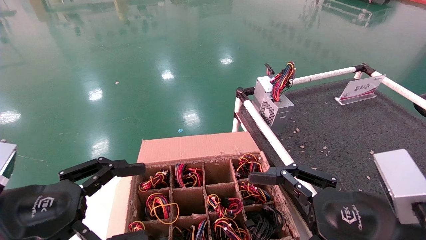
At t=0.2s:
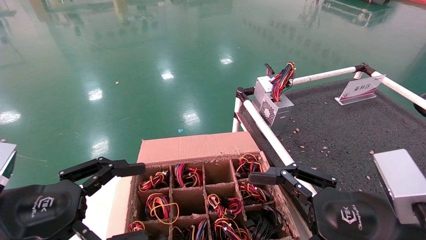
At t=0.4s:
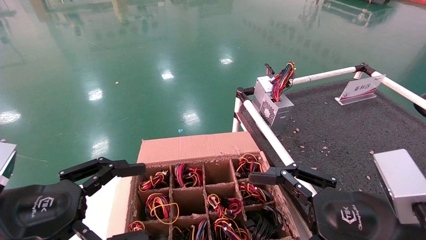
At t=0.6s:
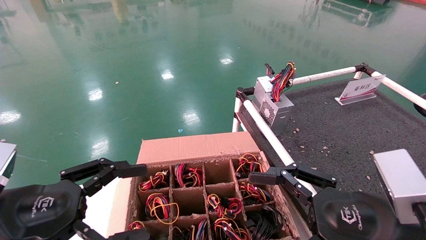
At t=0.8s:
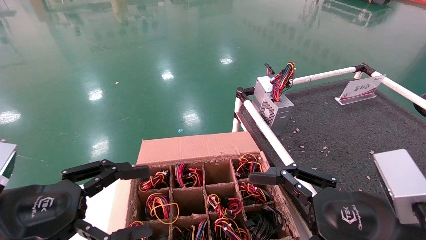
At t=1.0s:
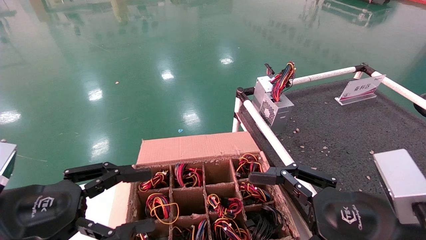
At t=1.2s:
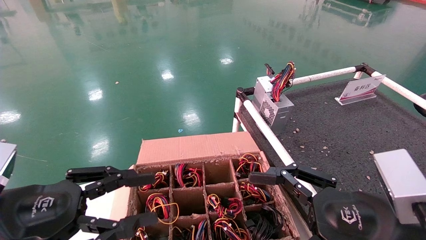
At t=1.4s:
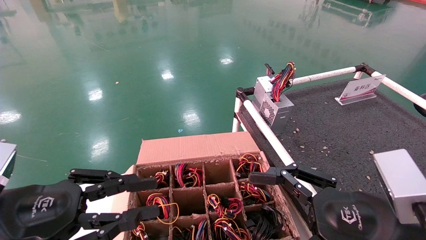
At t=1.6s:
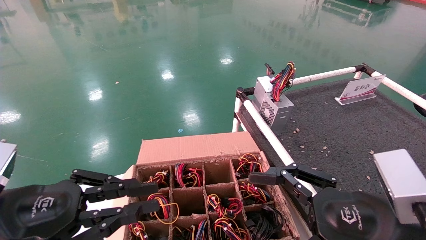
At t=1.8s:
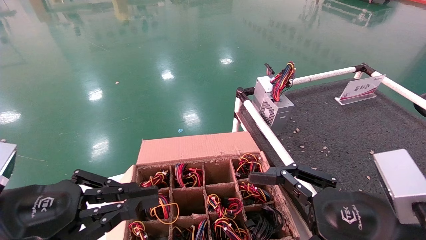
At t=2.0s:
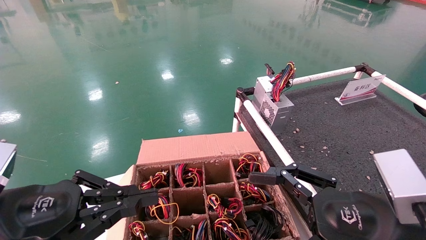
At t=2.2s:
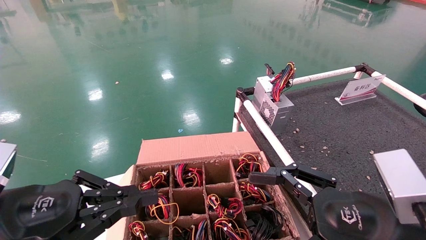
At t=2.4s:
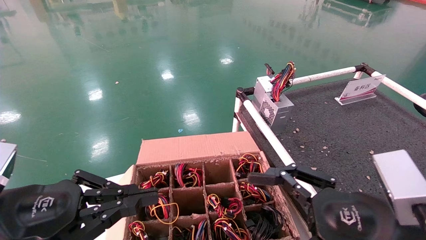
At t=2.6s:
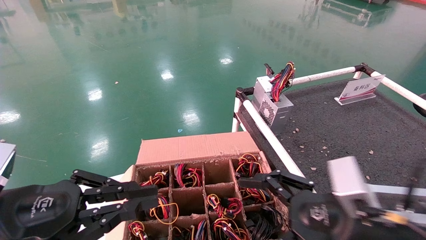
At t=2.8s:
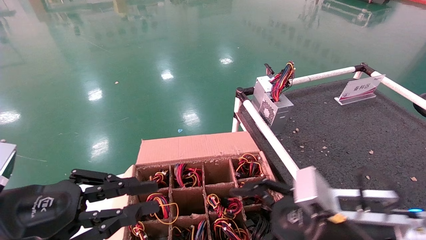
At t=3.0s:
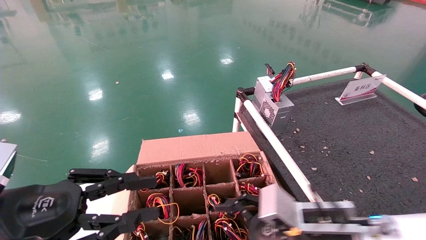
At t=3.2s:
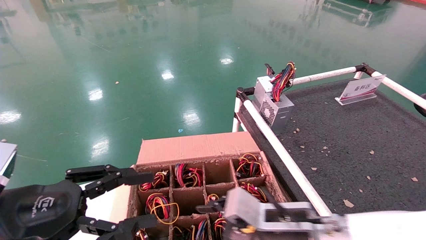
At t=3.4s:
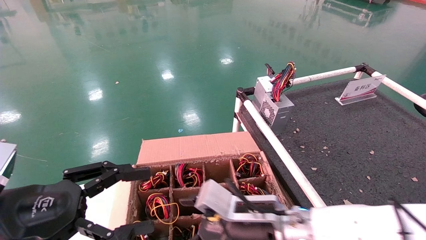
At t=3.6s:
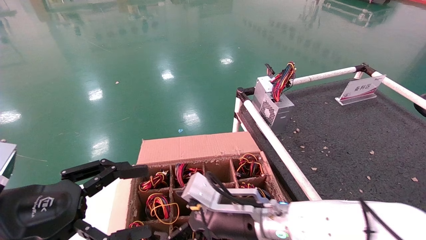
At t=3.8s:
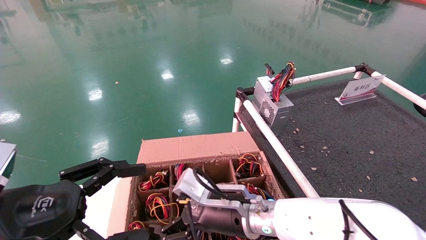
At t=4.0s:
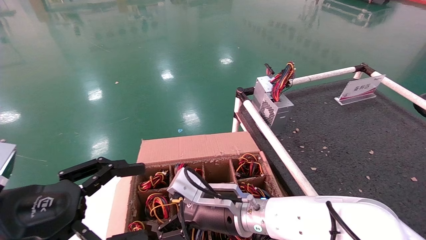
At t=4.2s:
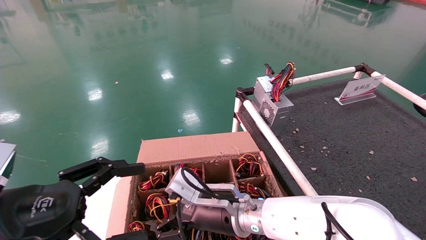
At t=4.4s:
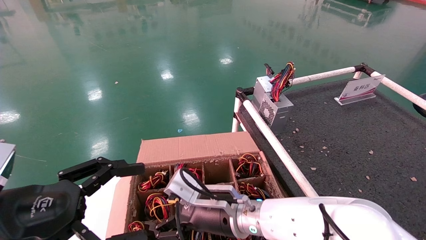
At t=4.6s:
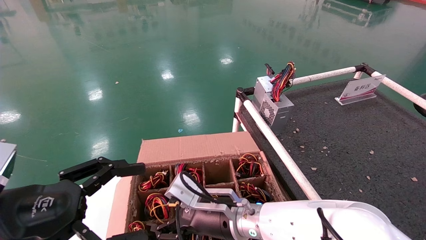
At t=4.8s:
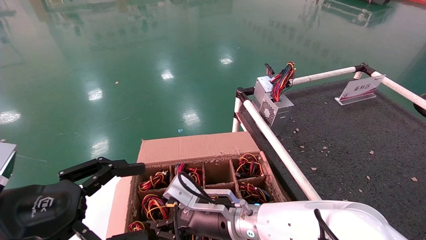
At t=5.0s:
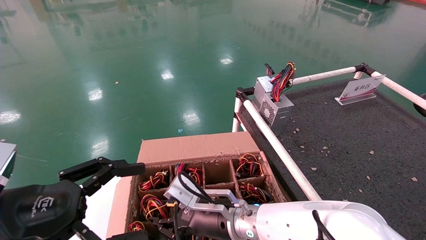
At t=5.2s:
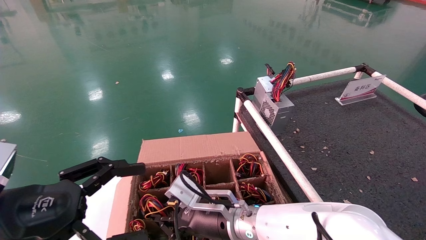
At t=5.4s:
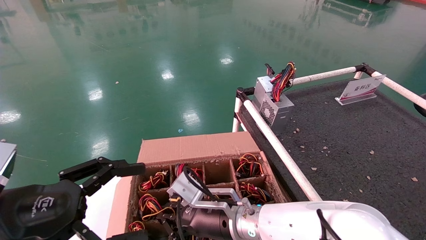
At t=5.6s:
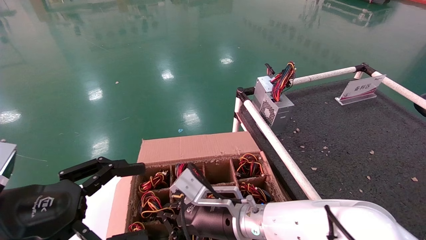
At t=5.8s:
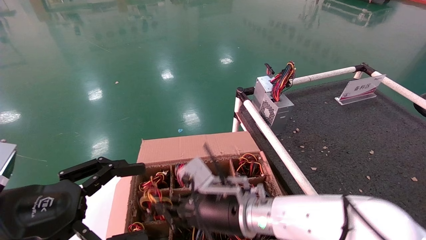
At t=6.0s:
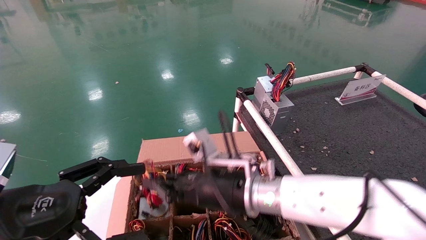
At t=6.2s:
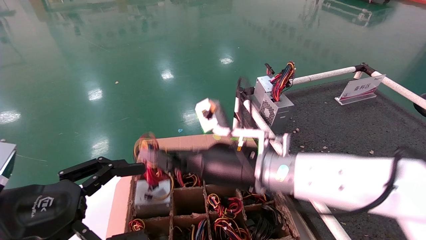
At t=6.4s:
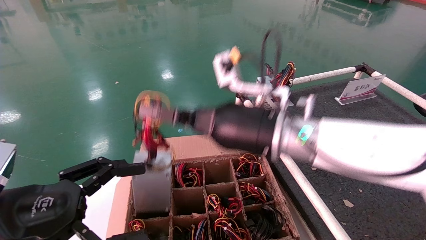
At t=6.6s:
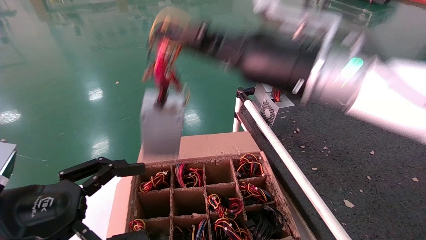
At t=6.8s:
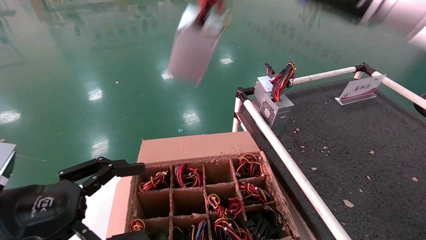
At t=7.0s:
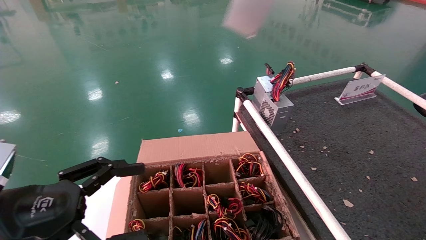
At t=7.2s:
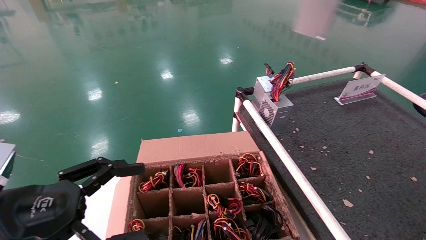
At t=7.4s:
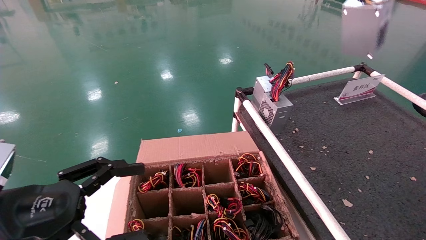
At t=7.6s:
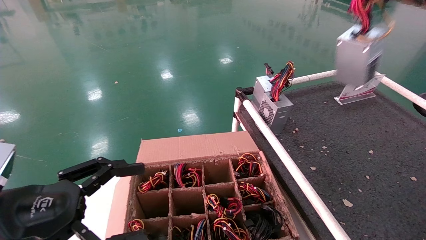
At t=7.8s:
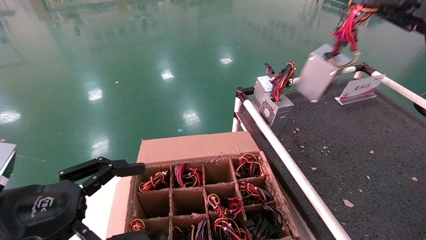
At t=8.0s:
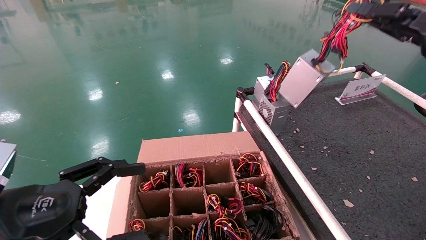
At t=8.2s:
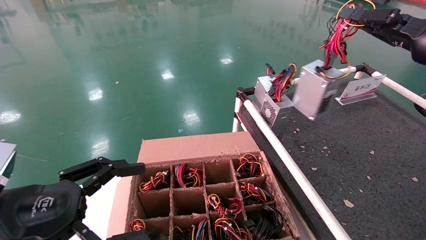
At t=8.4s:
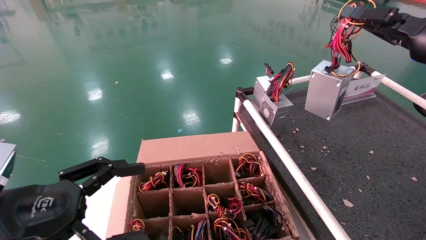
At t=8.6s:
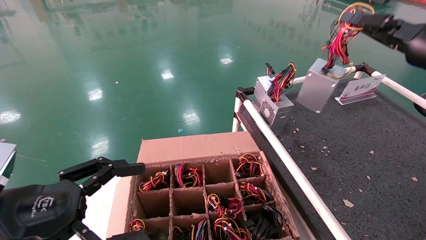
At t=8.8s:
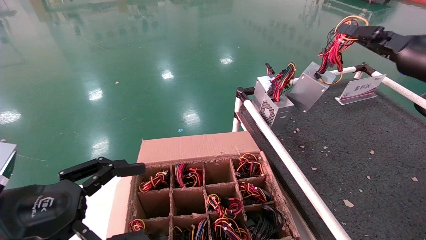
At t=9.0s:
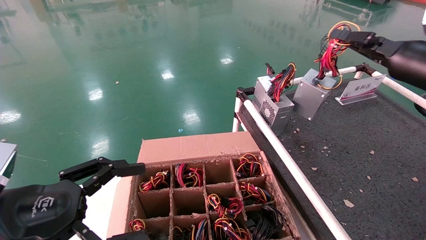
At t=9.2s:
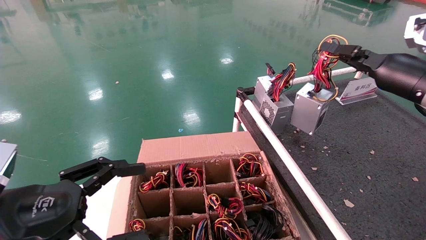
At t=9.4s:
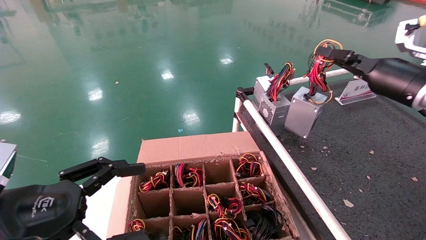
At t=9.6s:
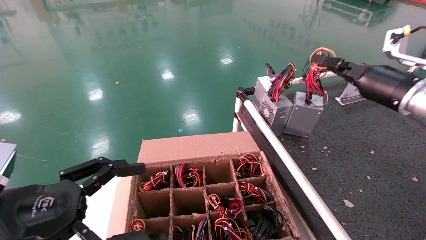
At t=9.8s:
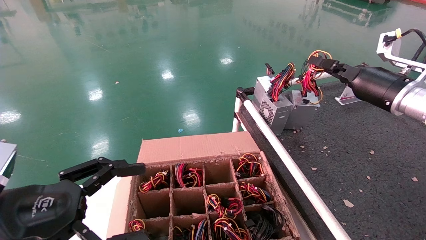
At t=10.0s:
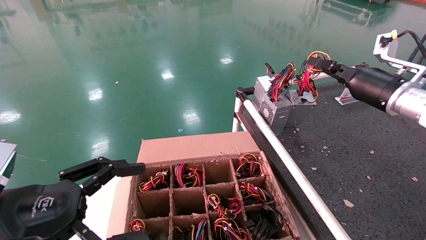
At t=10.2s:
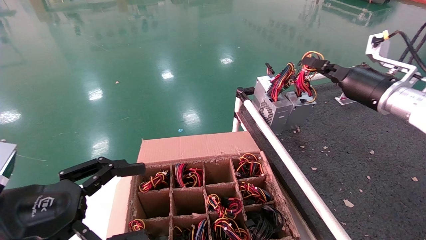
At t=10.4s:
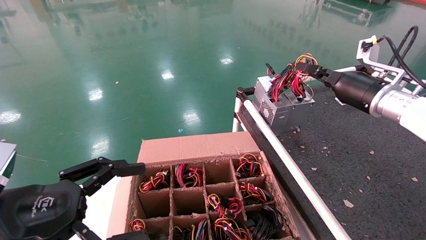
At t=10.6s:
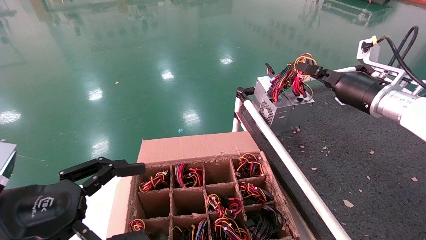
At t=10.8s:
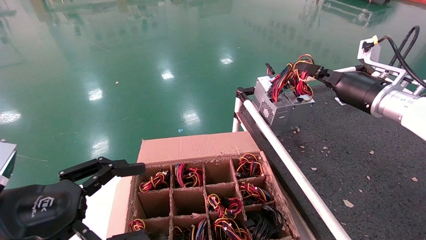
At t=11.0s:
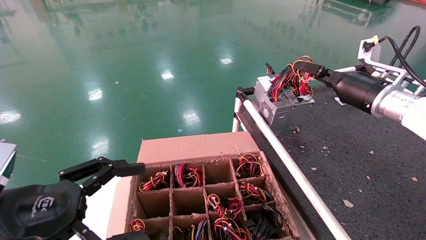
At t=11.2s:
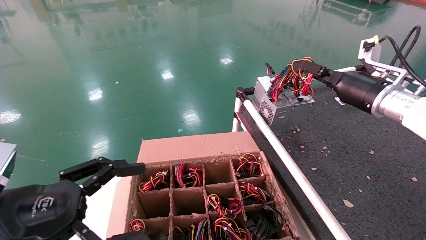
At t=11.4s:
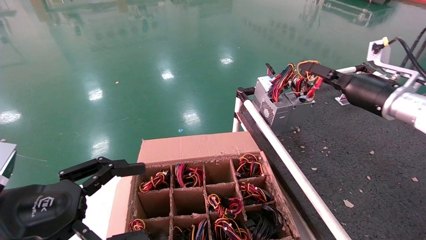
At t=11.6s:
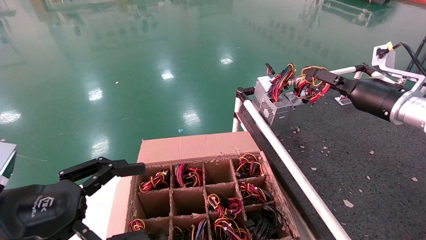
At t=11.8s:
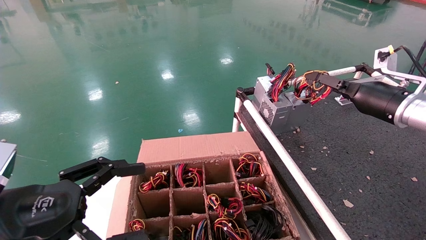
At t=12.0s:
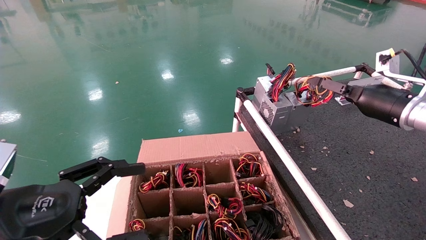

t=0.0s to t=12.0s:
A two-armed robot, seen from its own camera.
Step, t=3.0s to t=5.6s: Grab and lift the power supply from the large box.
Step, t=5.8s to t=11.2s: Place the power supply on the operating table.
t=0.0s to t=1.6s: The left gripper closes its fingers.
t=1.6s to t=3.0s: The right gripper travels forward, to the left and downward by some 10 cm.
t=3.0s to t=4.4s: The left gripper opens up. Meanwhile the right gripper moves to the left and forward, about 15 cm.
t=4.4s to t=6.0s: The right gripper is displaced upward by roughly 5 cm, and closes.
t=6.0s to t=7.6s: The right gripper shifts approximately 40 cm to the right and upward.
t=7.6s to t=9.0s: The right gripper heads downward and forward, covering some 10 cm.
t=9.0s to t=10.4s: The right gripper is displaced forward and to the left by approximately 10 cm.
t=10.4s to t=12.0s: The right gripper shifts by some 5 cm, and opens up.

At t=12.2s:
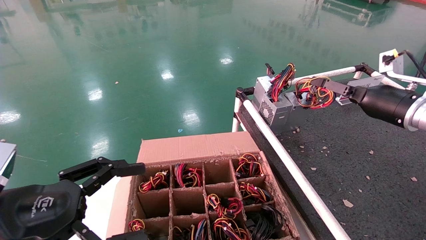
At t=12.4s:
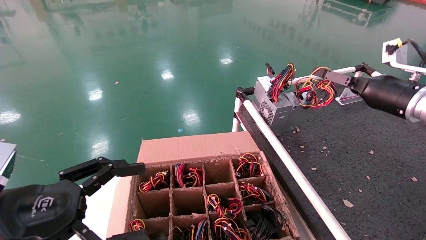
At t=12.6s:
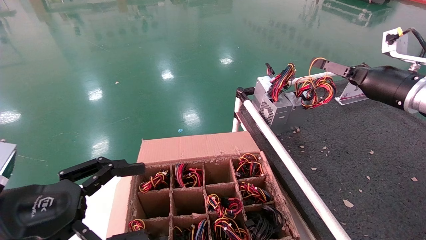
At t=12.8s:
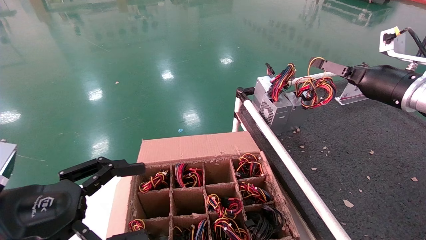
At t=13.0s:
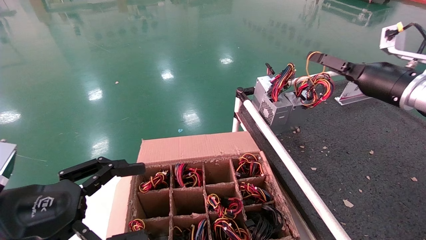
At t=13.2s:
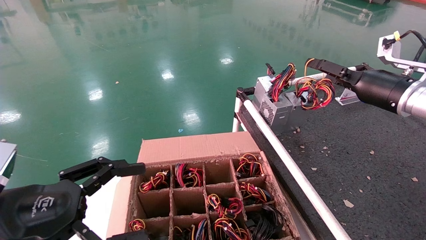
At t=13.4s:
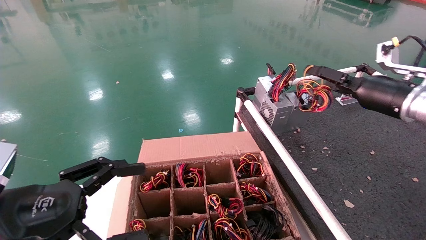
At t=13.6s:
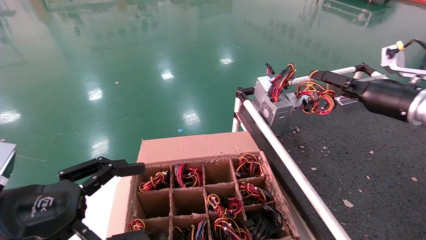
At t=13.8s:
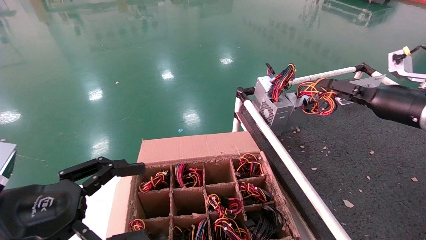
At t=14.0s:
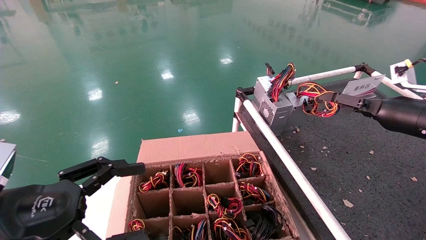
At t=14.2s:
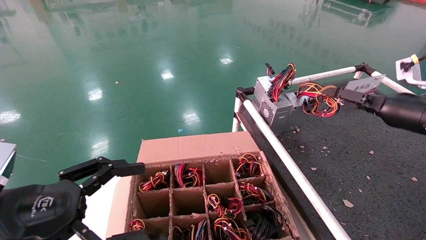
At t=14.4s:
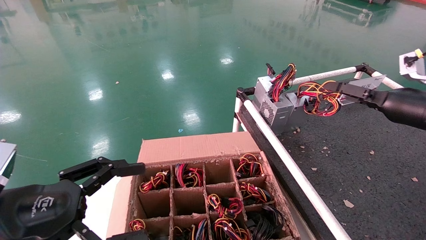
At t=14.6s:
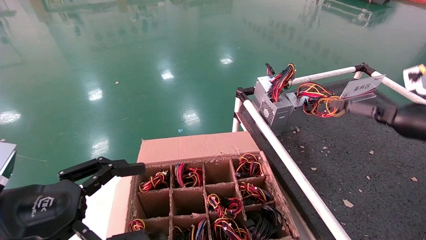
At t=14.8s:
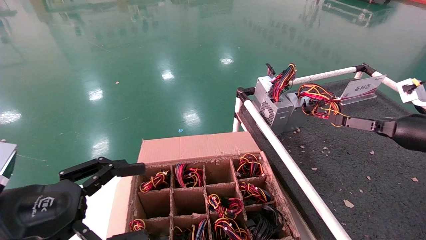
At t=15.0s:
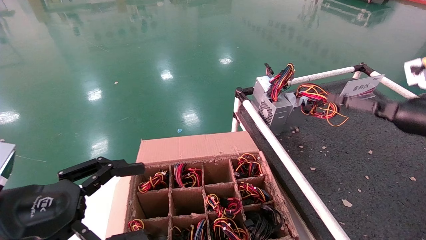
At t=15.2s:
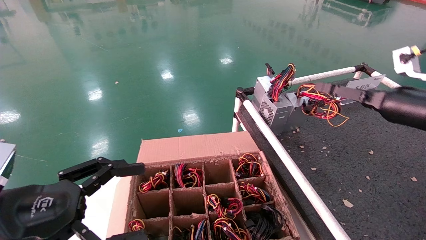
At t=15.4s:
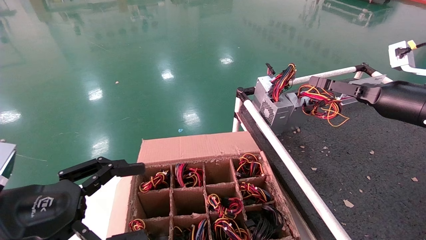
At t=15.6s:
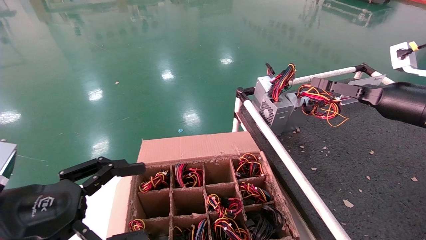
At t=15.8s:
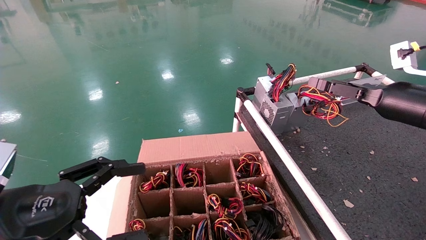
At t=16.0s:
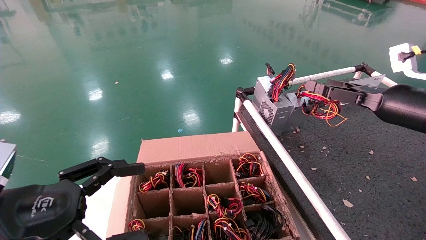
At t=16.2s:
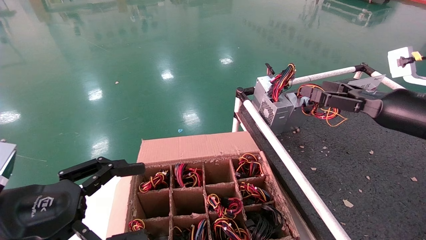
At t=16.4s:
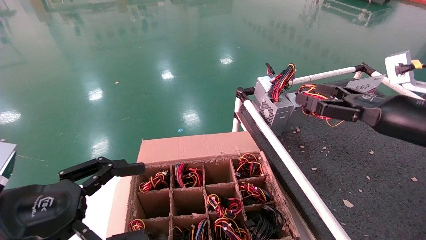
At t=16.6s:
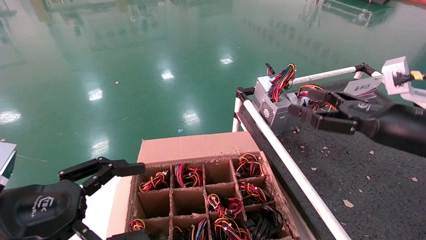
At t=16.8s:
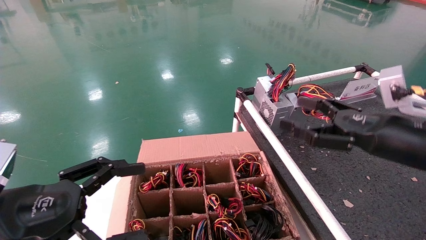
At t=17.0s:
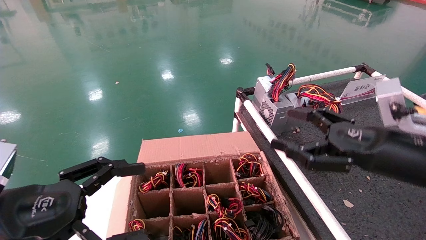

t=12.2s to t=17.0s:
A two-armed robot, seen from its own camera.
t=12.2s to t=13.8s: There are only small adjustments of the grippers.
t=13.8s to t=15.4s: The grippers make only small movements.
t=15.4s to t=17.0s: The right gripper shifts approximately 15 cm backward, to the left and downward.
